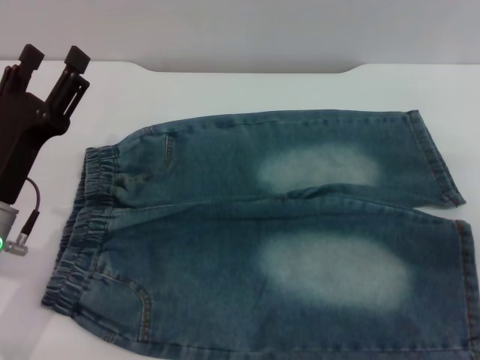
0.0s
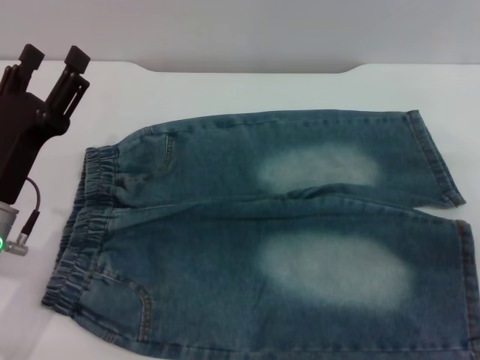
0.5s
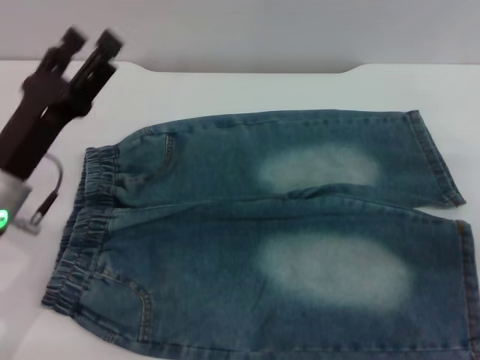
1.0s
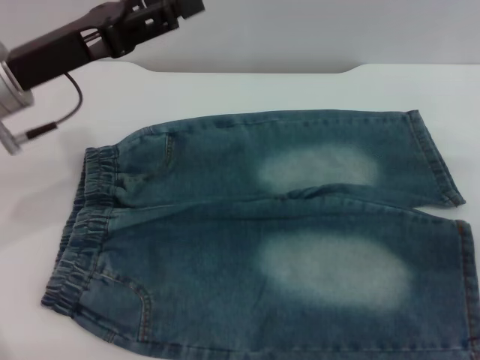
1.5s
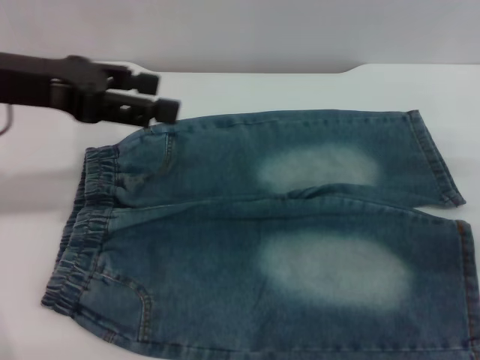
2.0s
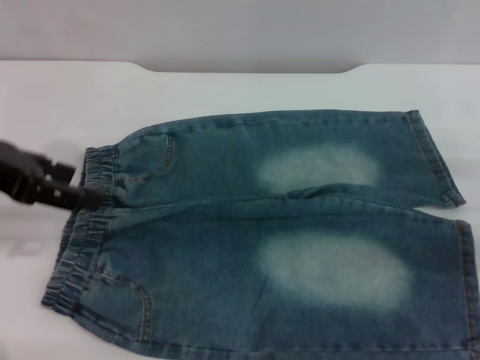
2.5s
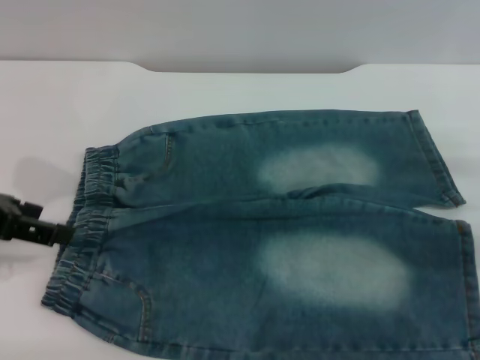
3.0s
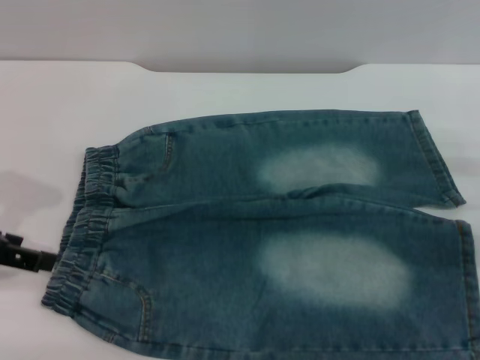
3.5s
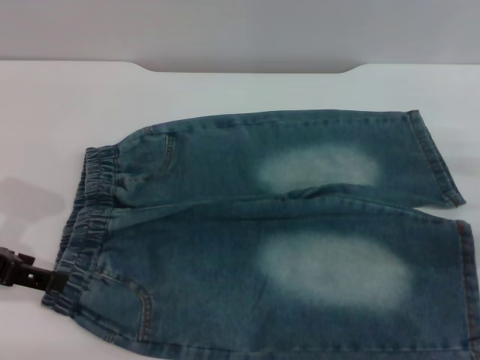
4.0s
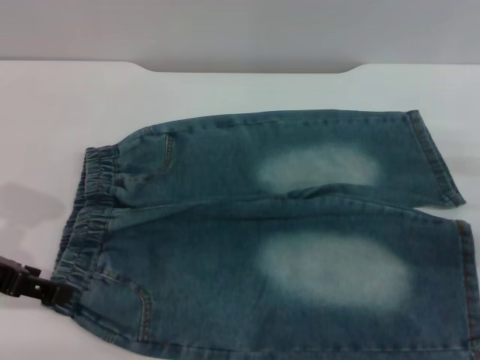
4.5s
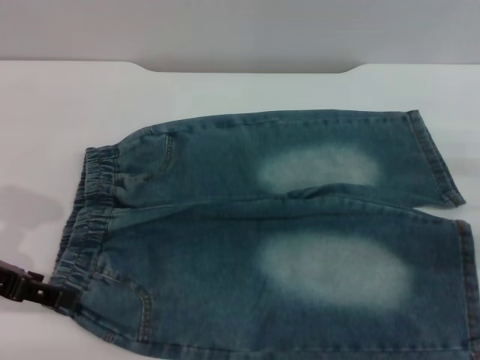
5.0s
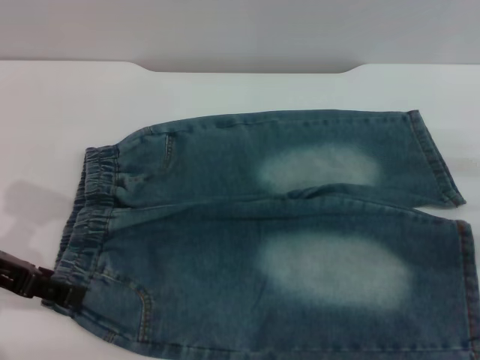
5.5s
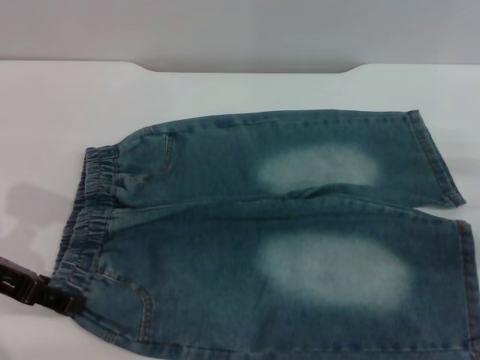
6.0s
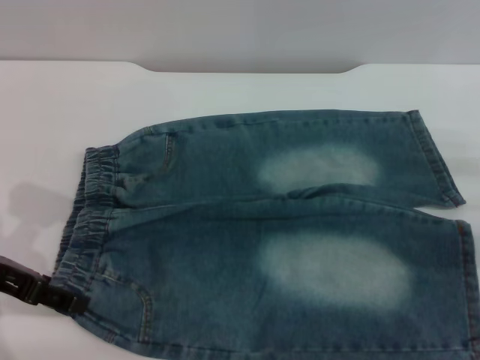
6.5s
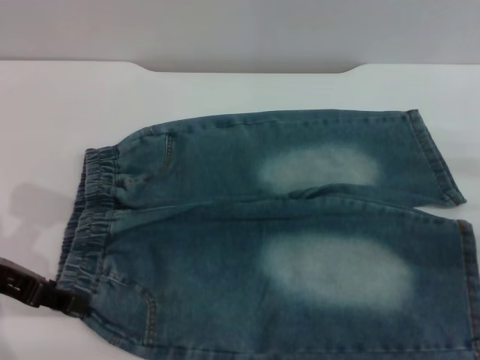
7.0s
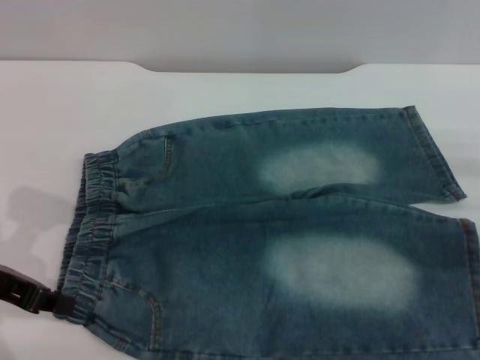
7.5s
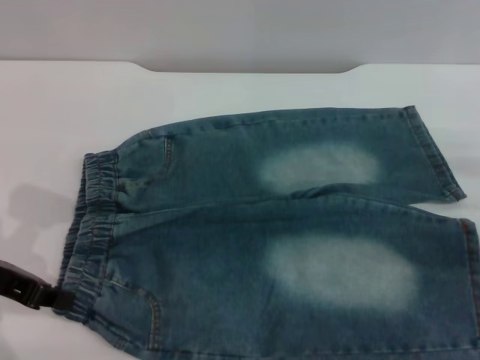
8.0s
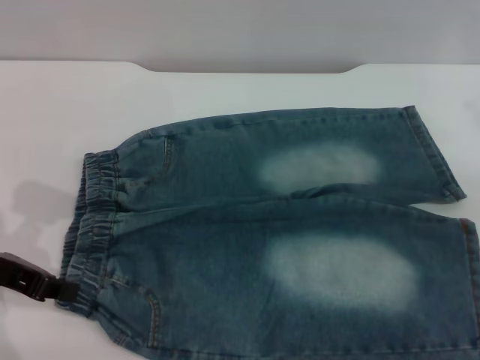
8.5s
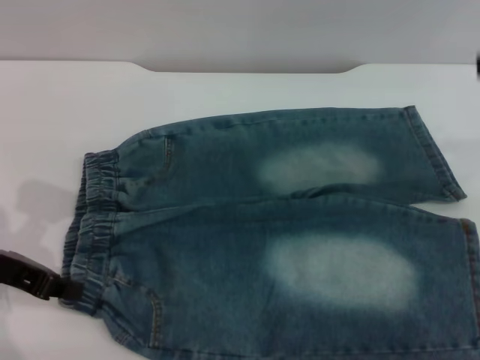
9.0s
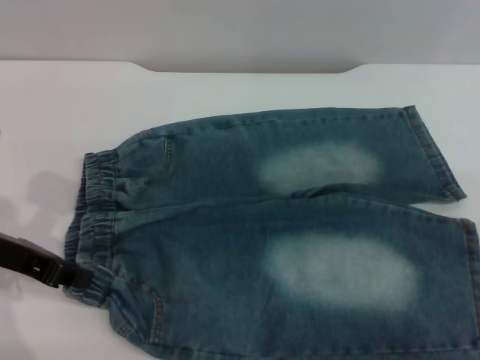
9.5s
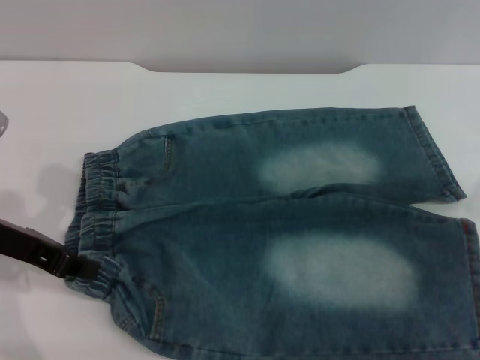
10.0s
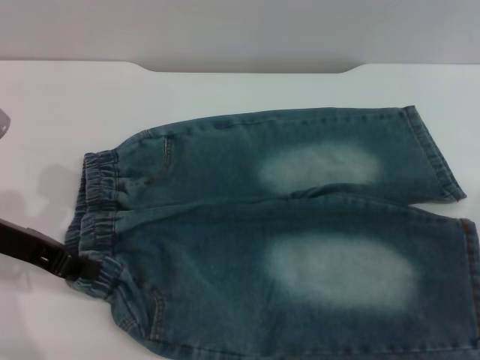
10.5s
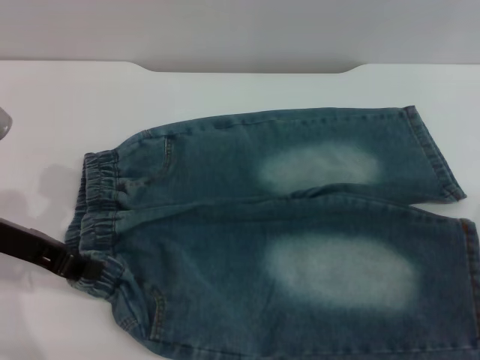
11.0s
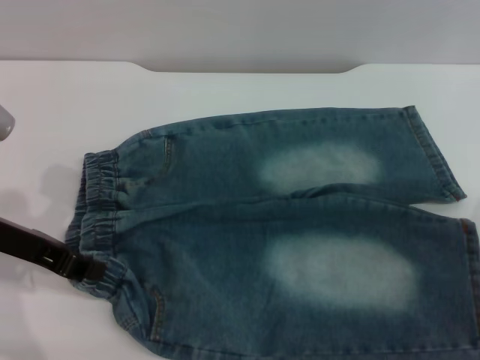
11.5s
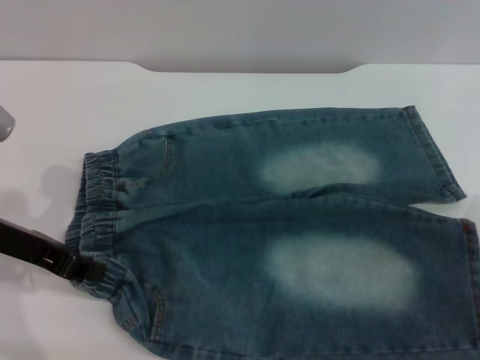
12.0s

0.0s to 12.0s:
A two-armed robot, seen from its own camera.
0.0s to 2.0s: The left gripper travels upward and forward by roughly 20 cm.
2.0s to 4.0s: The left gripper goes roughly 10 cm downward, backward and to the left.
4.0s to 6.0s: There are only small adjustments of the grippers.
6.0s to 8.0s: The left gripper closes.

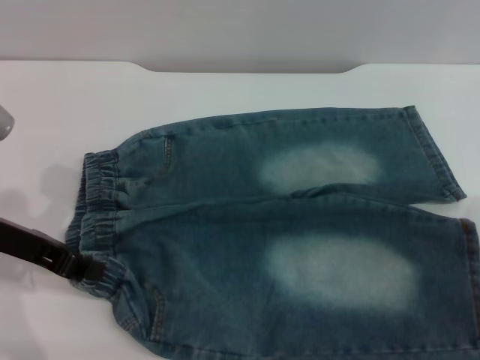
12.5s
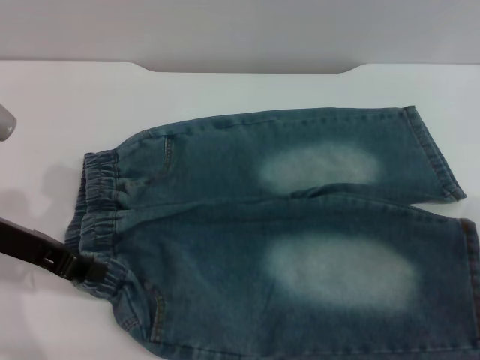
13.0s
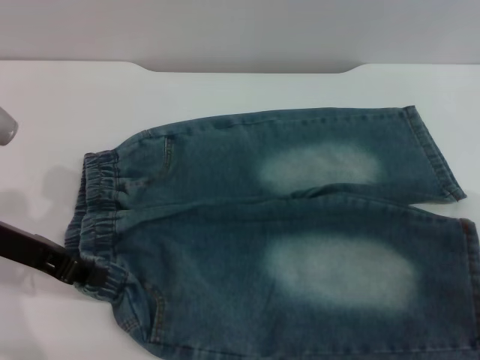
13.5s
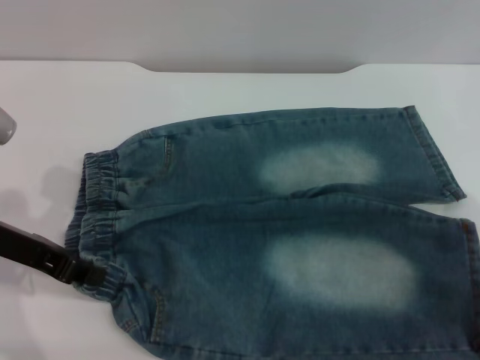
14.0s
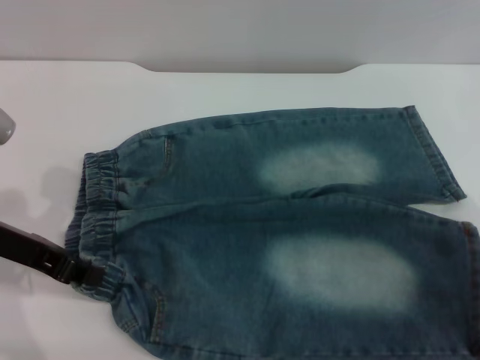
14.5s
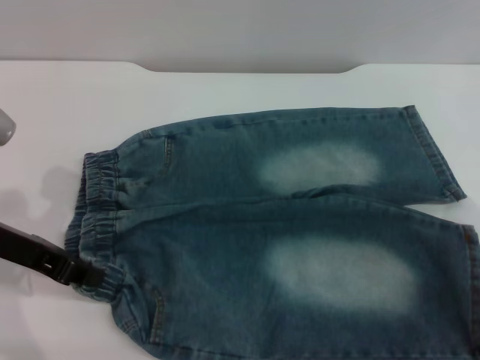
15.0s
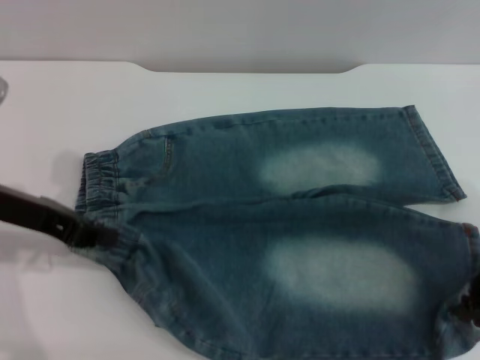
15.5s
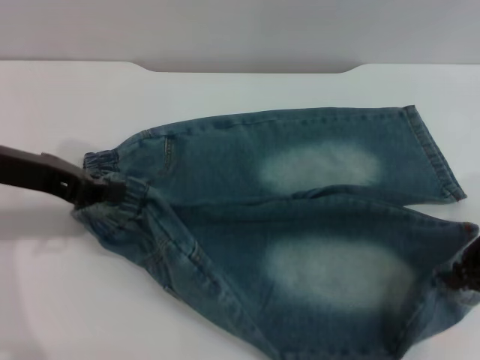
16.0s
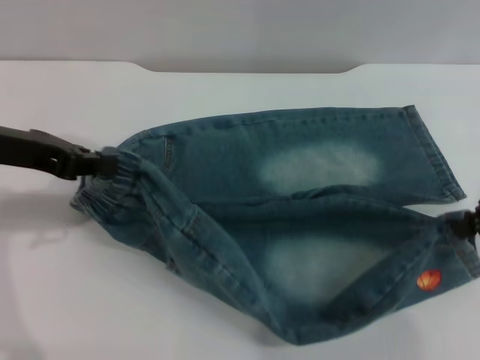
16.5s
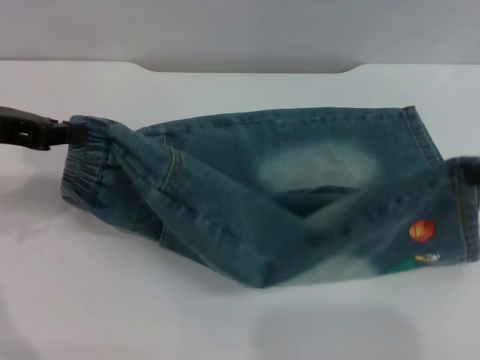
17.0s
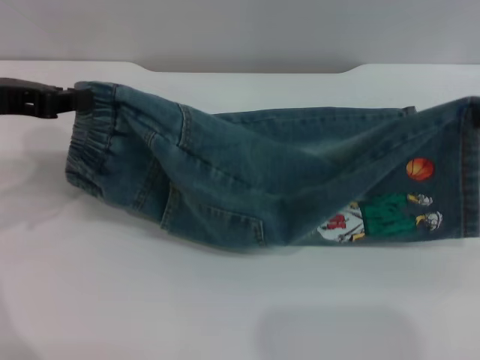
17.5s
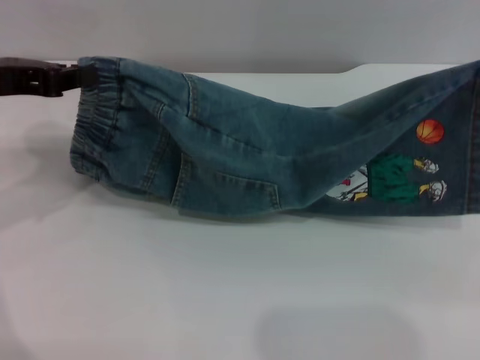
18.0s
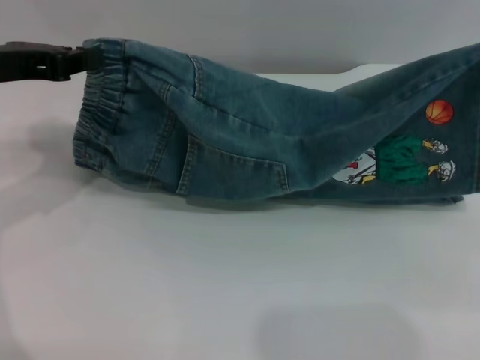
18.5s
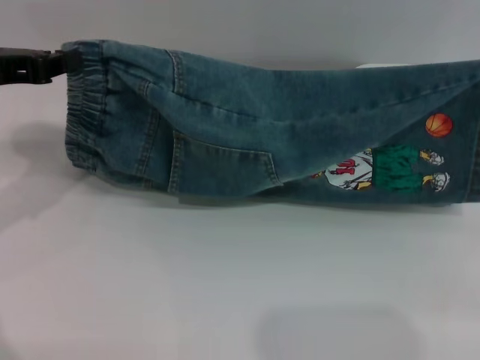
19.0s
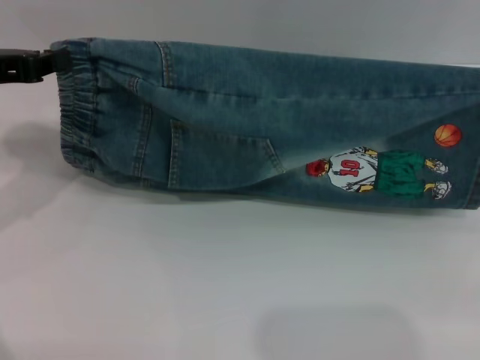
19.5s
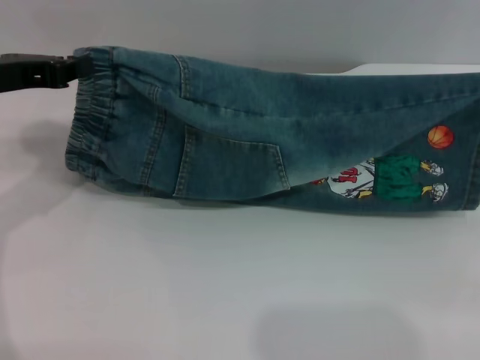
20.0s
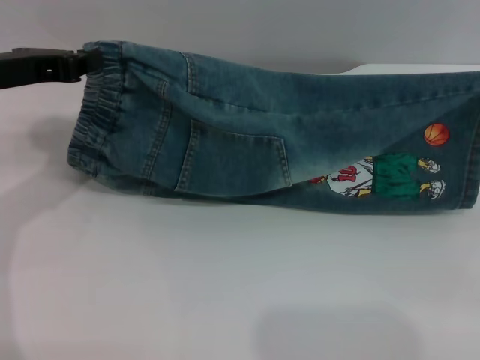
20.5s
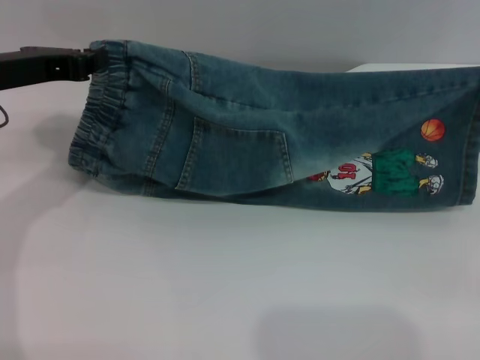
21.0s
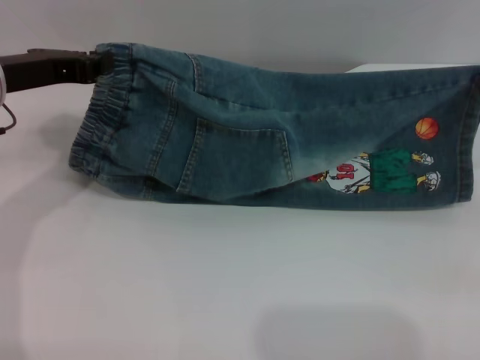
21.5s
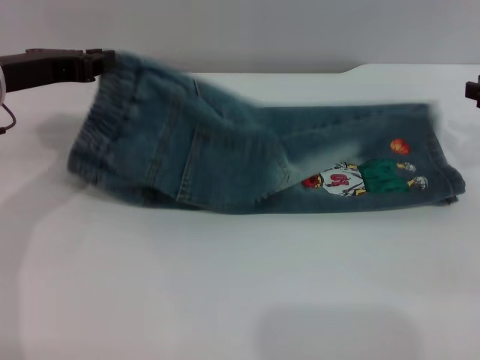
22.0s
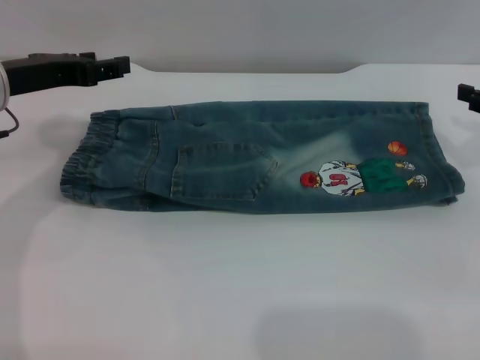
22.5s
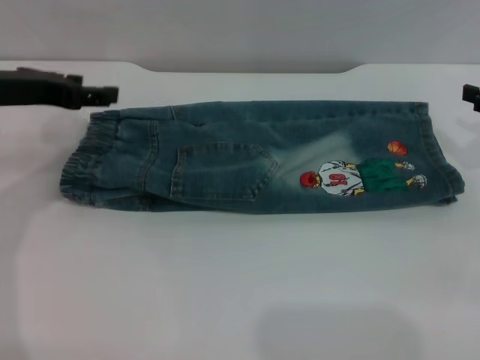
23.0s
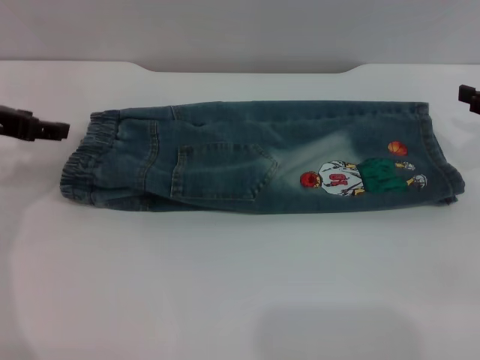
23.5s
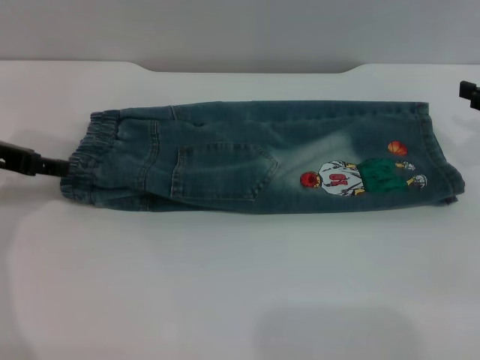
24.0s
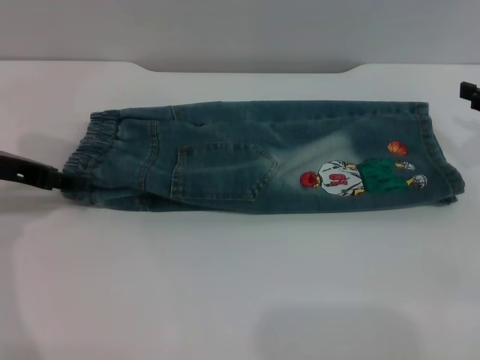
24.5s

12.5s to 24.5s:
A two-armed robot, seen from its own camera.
Step, 12.5s to 22.0s: Fold the bottom of the pants upward with both grippers.
12.5s to 14.5s: The grippers make only small movements.
14.5s to 16.5s: The two grippers go approximately 5 cm upward. The right gripper closes up.
18.5s to 20.5s: The right gripper shifts some 5 cm downward.
20.5s to 22.5s: The right gripper opens; the left gripper opens.
22.5s to 24.5s: The left gripper shifts by about 5 cm.

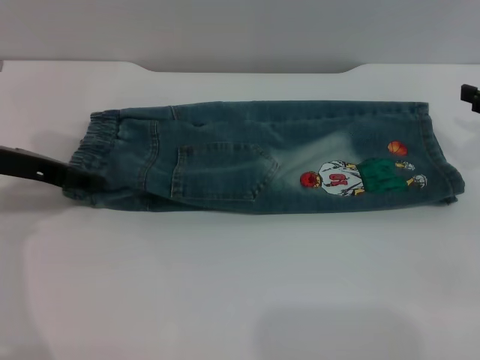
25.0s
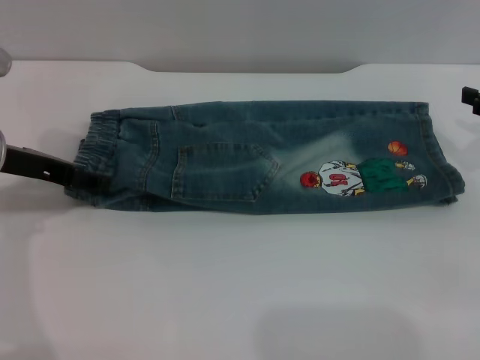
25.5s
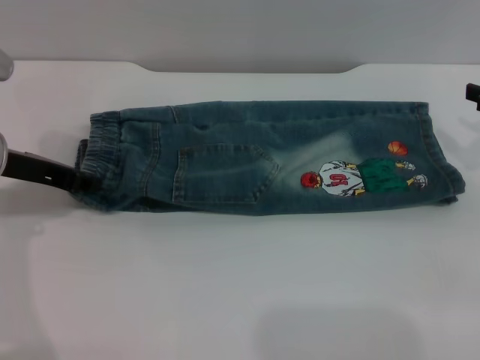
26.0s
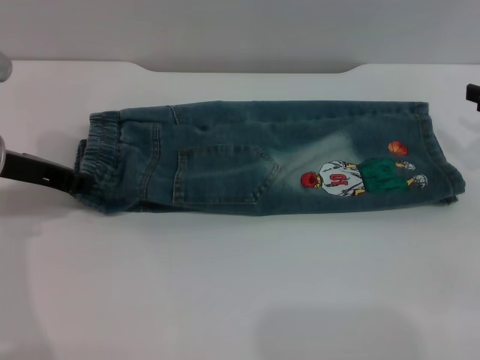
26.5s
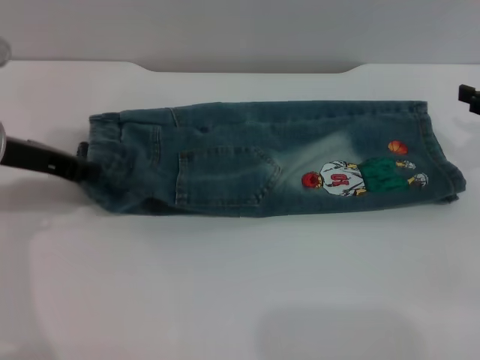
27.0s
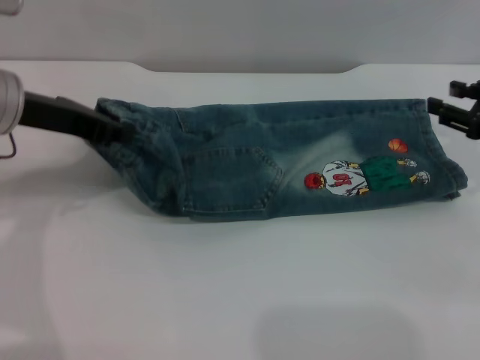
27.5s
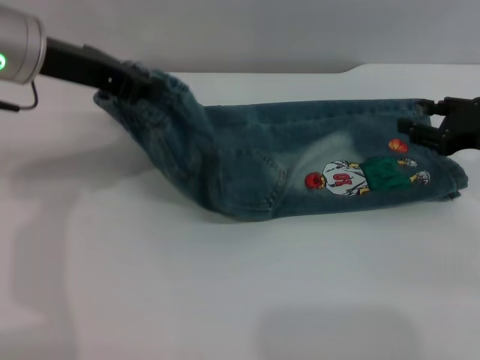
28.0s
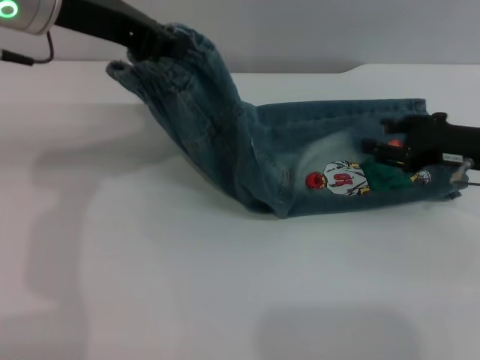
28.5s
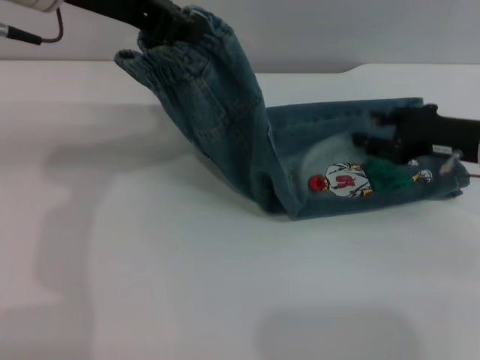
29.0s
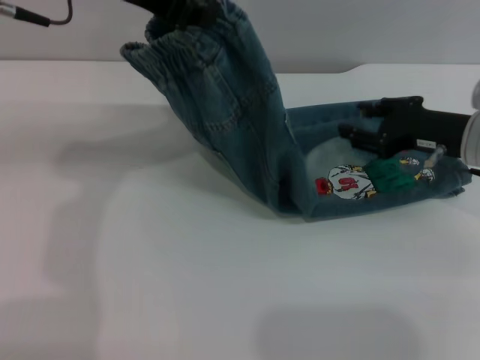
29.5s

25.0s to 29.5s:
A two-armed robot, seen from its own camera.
25.0s to 27.0s: The left gripper closes.
27.0s to 29.5s: The right gripper moves to the left, about 10 cm, while the left gripper is displaced upward and to the right by approximately 20 cm.
